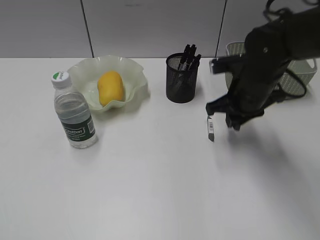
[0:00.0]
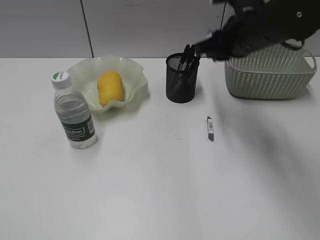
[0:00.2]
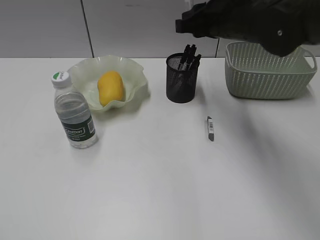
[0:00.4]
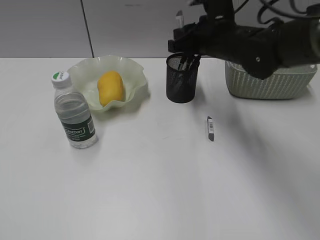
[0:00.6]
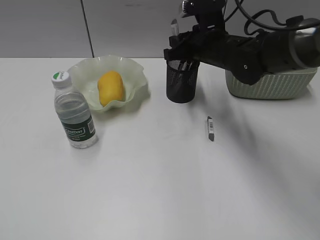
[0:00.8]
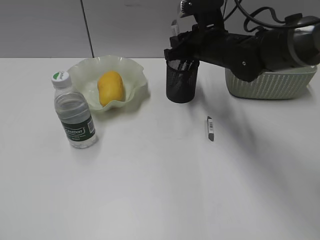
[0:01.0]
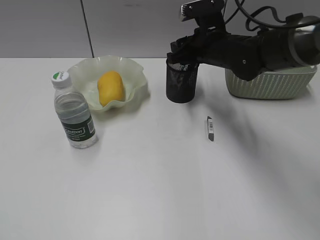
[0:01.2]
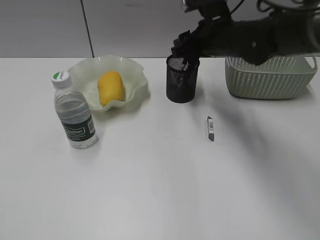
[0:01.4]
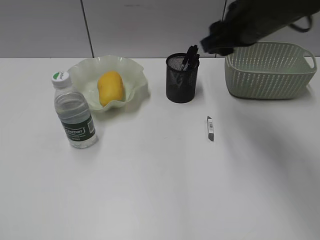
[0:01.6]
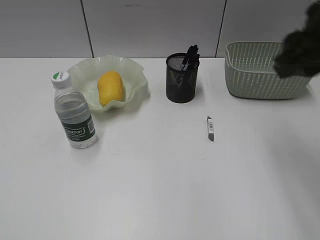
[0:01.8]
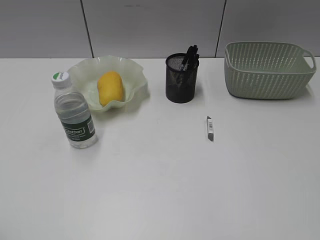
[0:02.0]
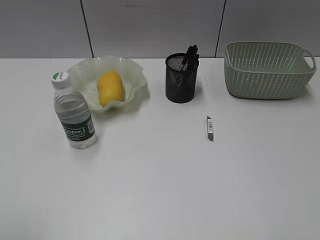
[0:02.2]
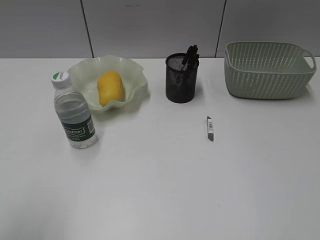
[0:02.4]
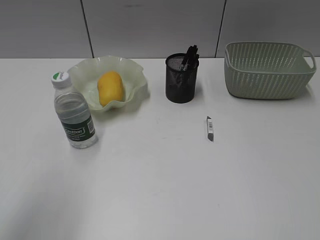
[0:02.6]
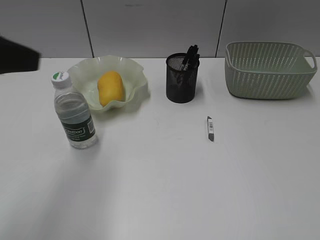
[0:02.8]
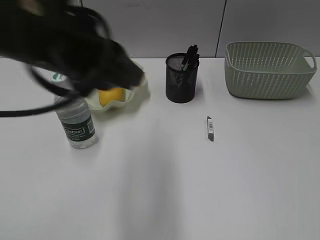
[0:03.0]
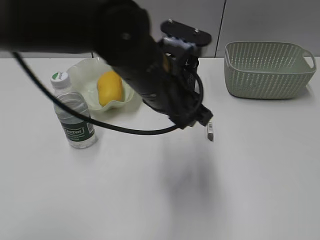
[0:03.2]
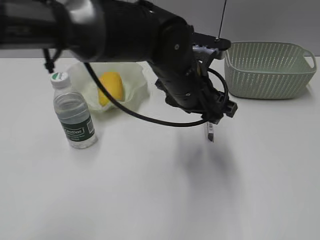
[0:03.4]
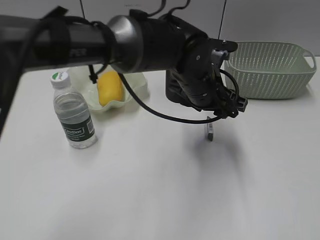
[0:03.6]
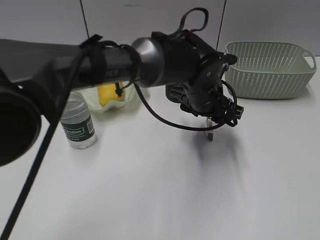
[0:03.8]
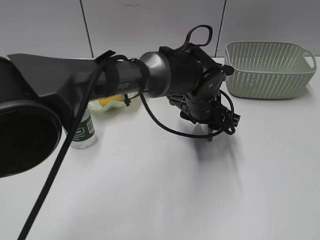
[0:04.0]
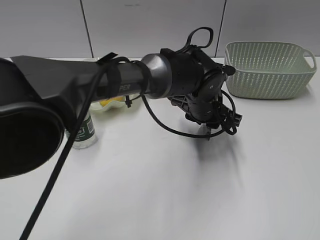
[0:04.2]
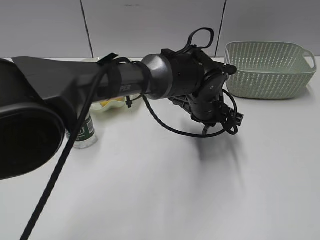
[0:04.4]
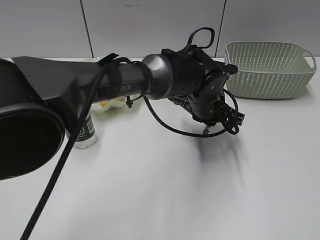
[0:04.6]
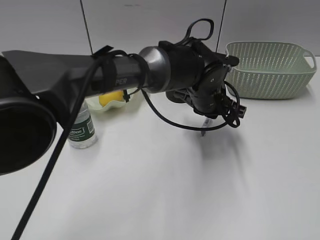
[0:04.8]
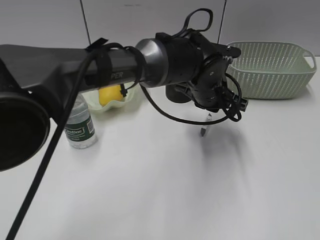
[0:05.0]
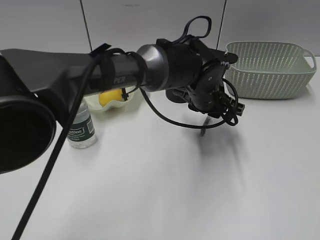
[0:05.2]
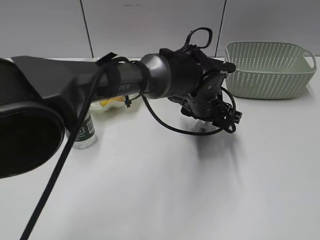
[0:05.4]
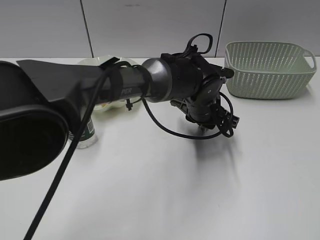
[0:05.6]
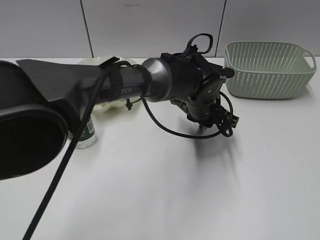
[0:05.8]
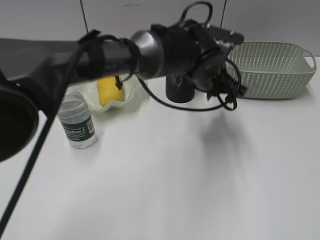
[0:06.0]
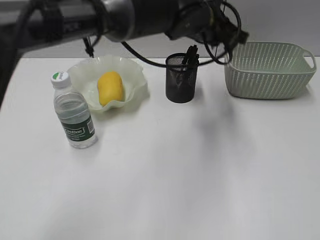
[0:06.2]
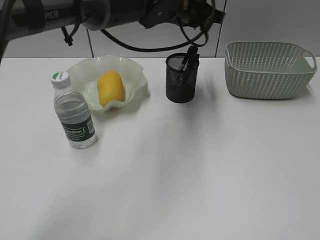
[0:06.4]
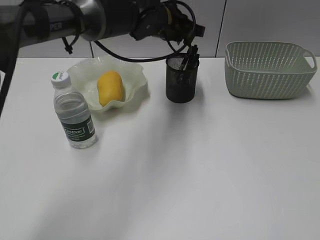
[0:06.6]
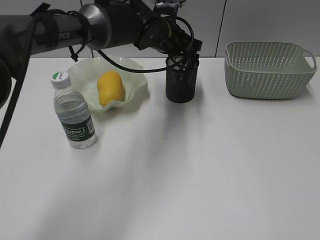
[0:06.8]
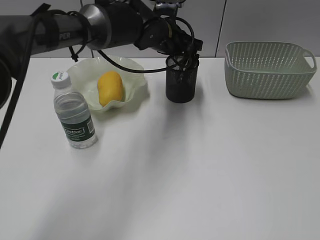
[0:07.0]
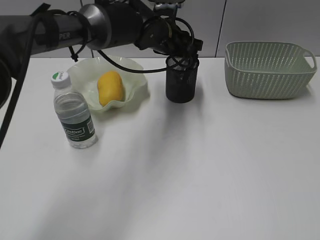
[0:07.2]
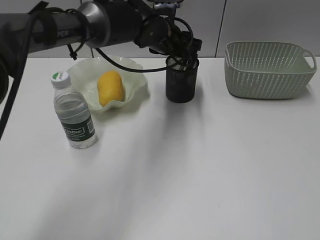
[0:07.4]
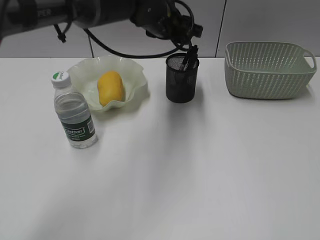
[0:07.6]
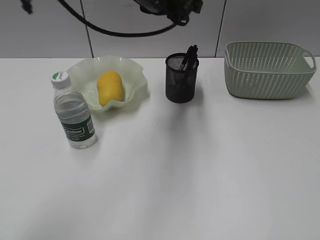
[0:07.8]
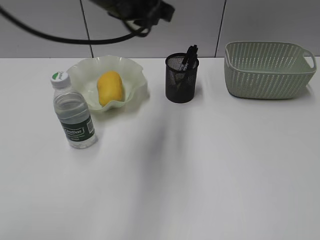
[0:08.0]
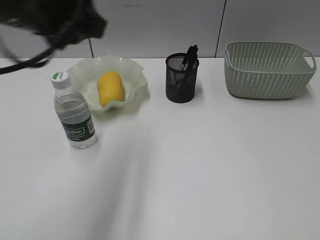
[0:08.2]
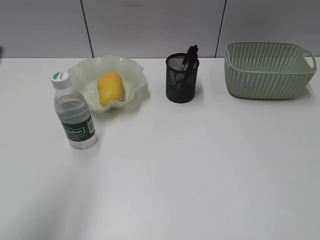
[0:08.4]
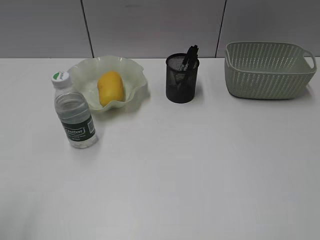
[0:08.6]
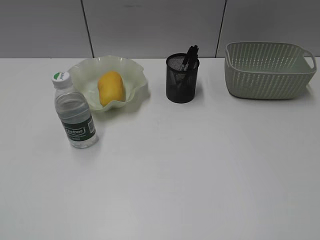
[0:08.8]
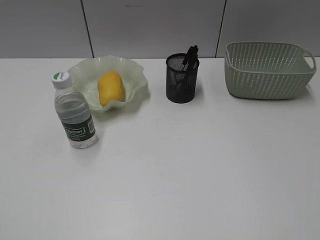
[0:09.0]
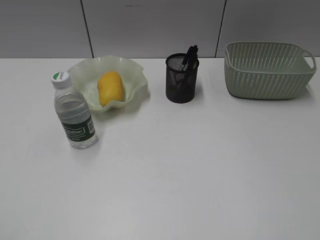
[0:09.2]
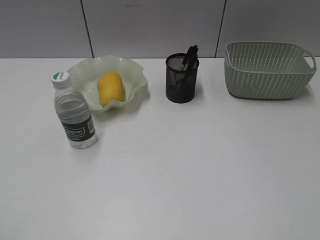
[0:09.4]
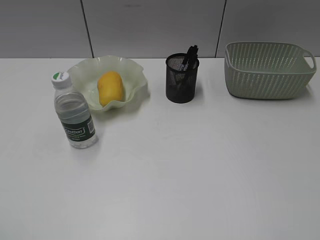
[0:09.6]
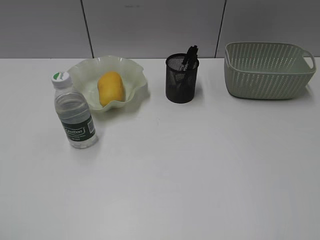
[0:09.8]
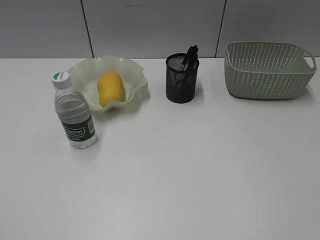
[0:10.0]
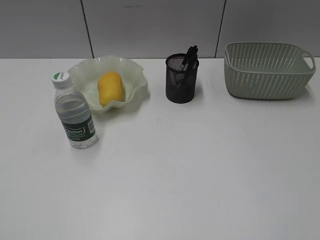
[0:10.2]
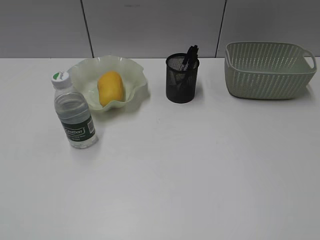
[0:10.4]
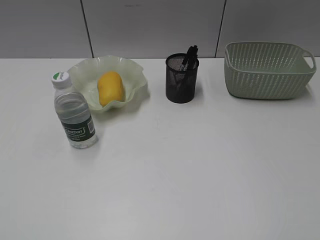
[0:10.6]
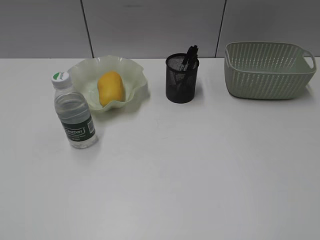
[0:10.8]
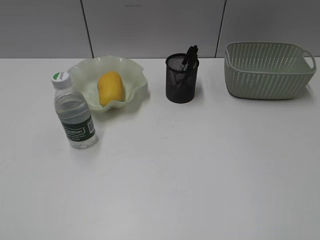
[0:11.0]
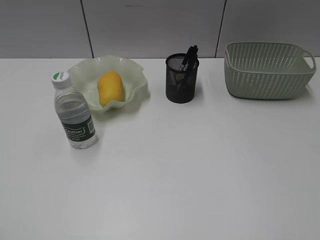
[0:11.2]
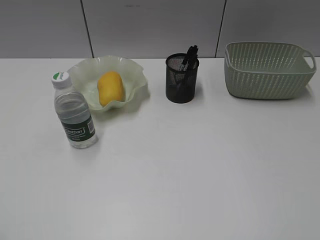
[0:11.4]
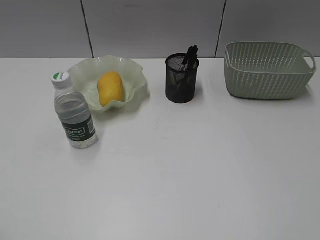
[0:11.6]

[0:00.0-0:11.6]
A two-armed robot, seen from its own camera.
Step, 0:00.0 to 0:01.4: Place the eraser in pen holder with right gripper.
Step, 0:01.6 to 0:05.6: Grasp the eraser with left gripper.
Step, 0:05.8 to 0:07.4: Place the eraser in pen holder with left gripper.
0:00.0 to 0:01.4: The right gripper travels forward by approximately 5 cm, and opens.
0:01.4 to 0:02.8: The right gripper is displaced backward and to the right by some 50 cm. The left gripper goes approximately 20 cm forward and to the right.
0:02.8 to 0:04.4: The left gripper heads to the right, downward and forward, covering roughly 40 cm, and opens, then closes again.
0:04.4 to 0:05.8: The left gripper opens, then closes once more.
0:05.8 to 0:07.2: The left gripper is displaced forward, upward and to the left by about 15 cm, and opens.
0:07.2 to 0:08.8: The left gripper travels backward and to the left by some 60 cm.
